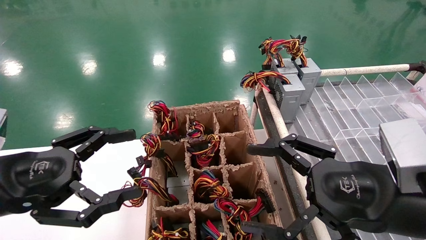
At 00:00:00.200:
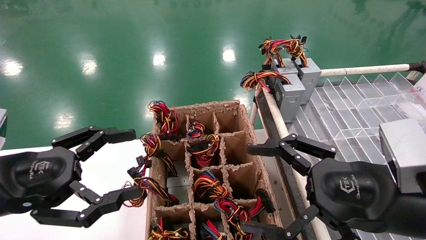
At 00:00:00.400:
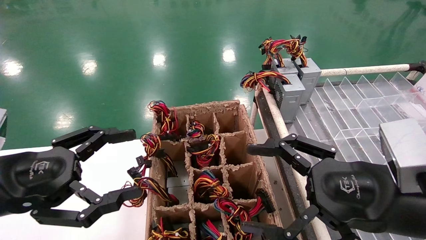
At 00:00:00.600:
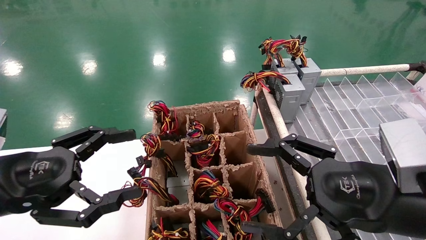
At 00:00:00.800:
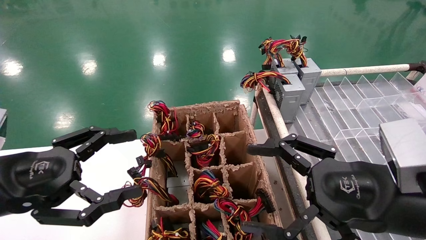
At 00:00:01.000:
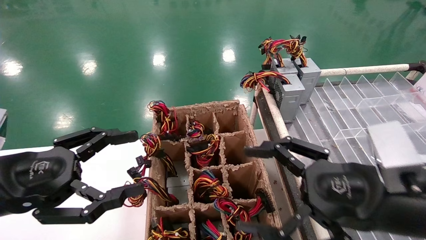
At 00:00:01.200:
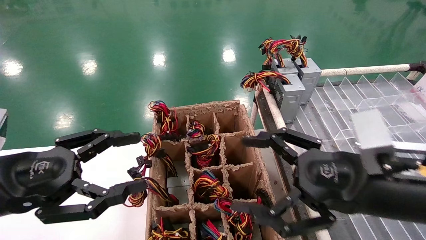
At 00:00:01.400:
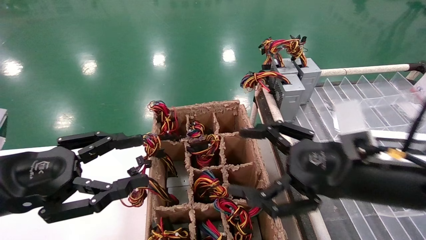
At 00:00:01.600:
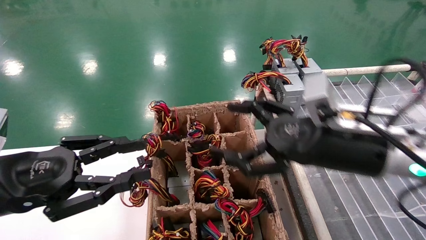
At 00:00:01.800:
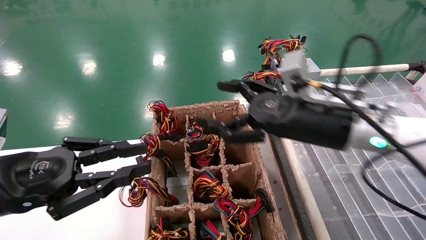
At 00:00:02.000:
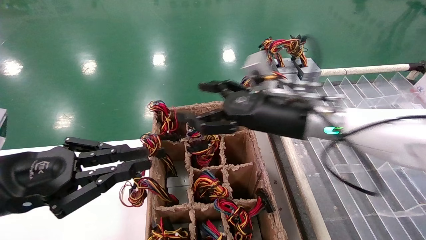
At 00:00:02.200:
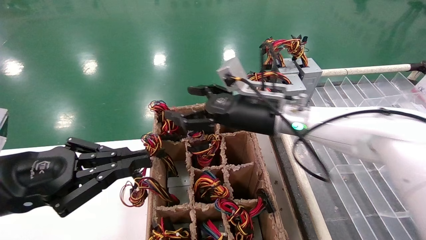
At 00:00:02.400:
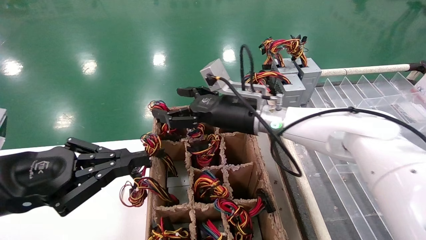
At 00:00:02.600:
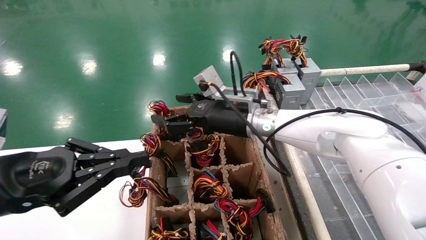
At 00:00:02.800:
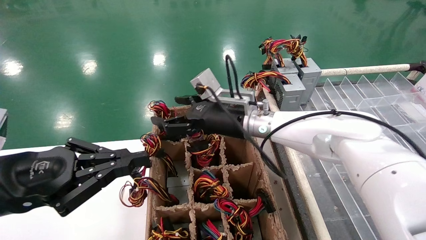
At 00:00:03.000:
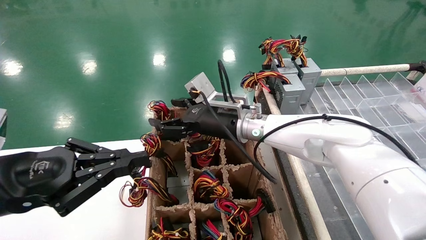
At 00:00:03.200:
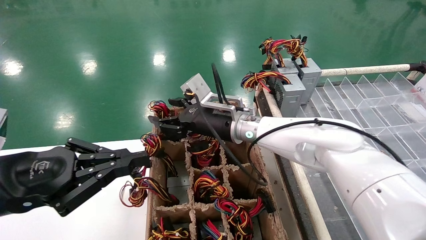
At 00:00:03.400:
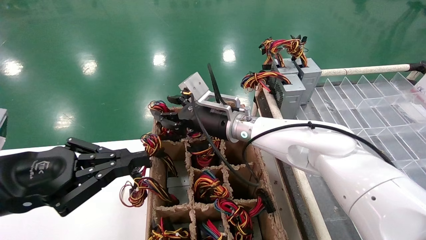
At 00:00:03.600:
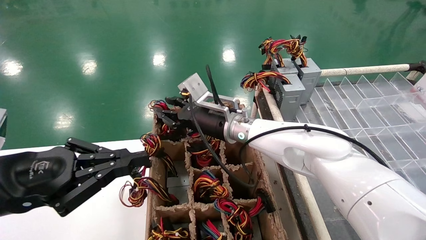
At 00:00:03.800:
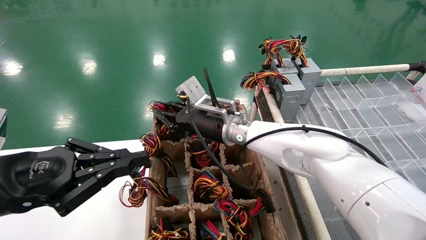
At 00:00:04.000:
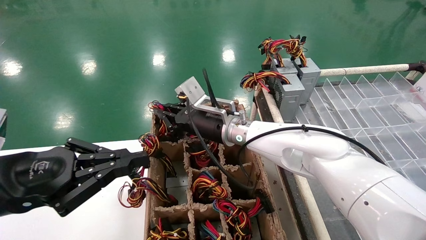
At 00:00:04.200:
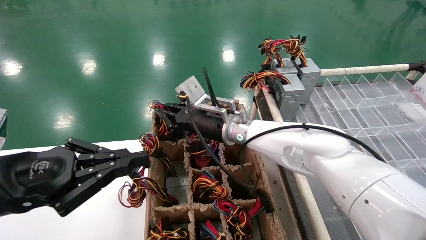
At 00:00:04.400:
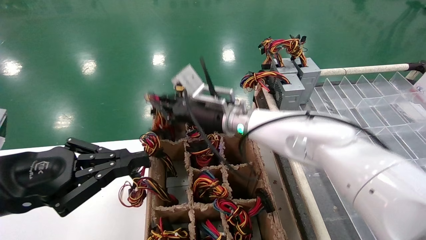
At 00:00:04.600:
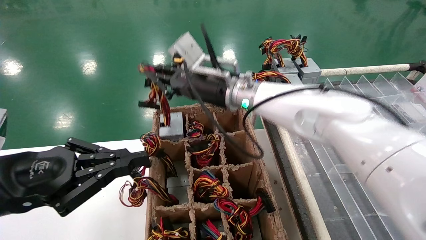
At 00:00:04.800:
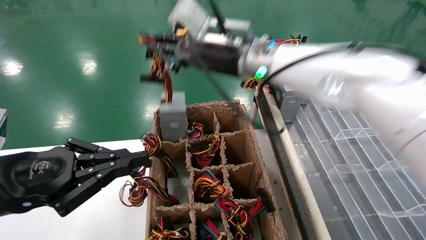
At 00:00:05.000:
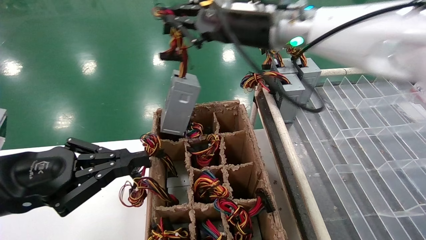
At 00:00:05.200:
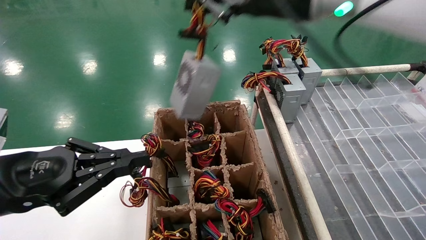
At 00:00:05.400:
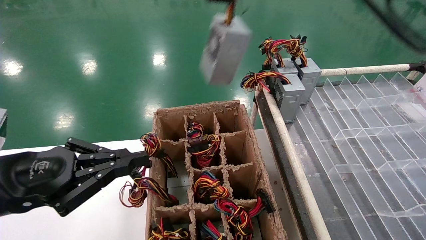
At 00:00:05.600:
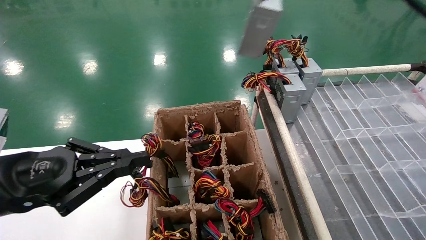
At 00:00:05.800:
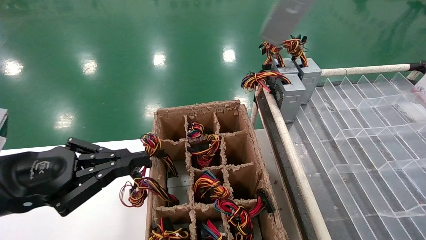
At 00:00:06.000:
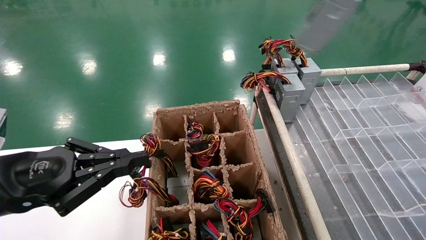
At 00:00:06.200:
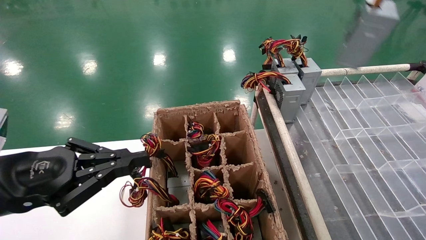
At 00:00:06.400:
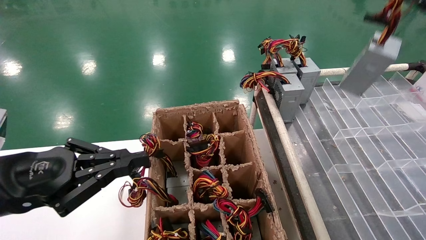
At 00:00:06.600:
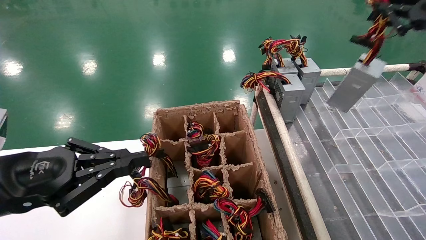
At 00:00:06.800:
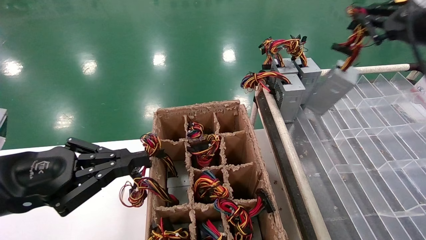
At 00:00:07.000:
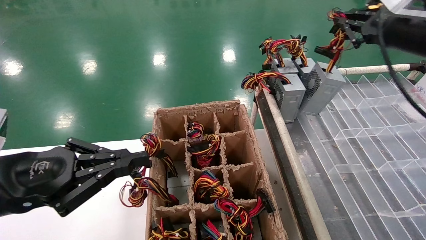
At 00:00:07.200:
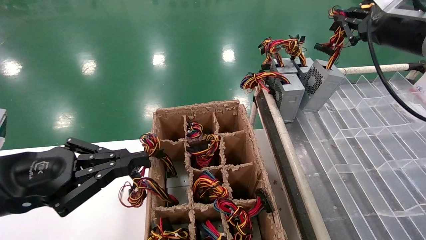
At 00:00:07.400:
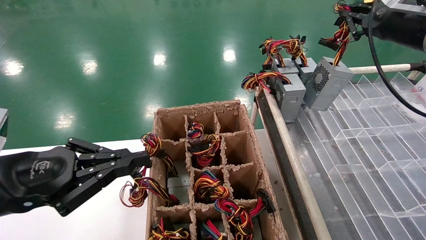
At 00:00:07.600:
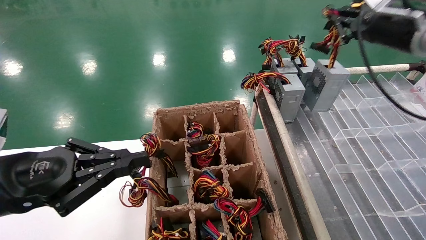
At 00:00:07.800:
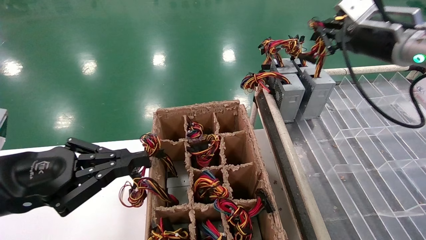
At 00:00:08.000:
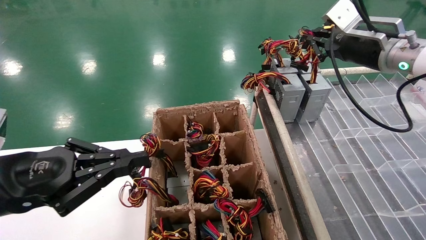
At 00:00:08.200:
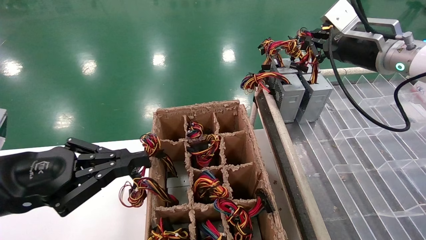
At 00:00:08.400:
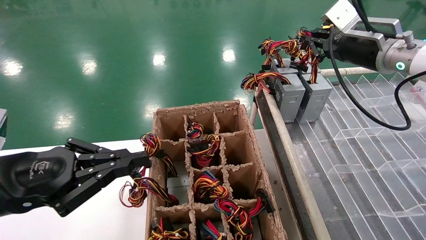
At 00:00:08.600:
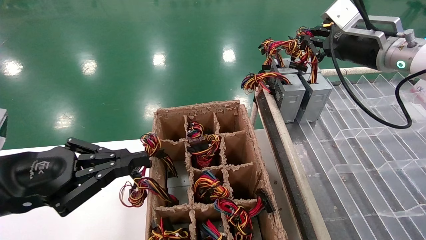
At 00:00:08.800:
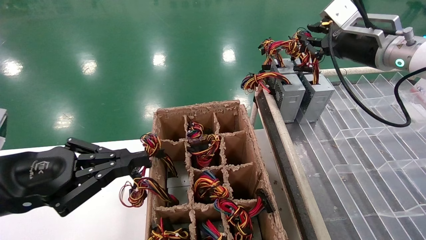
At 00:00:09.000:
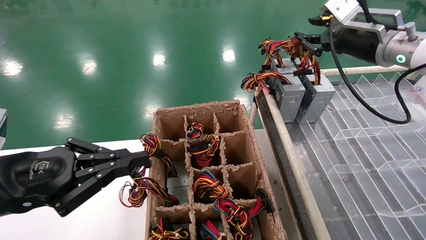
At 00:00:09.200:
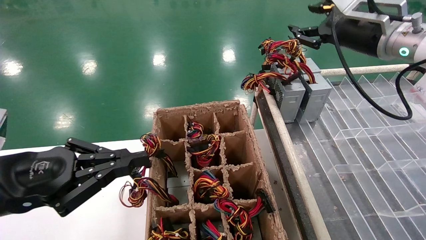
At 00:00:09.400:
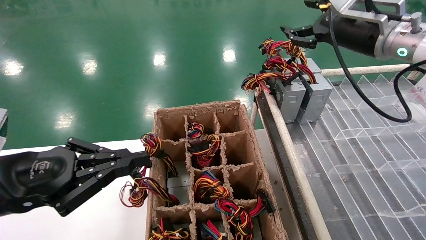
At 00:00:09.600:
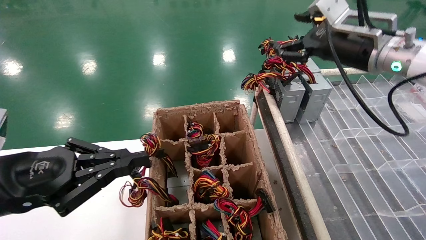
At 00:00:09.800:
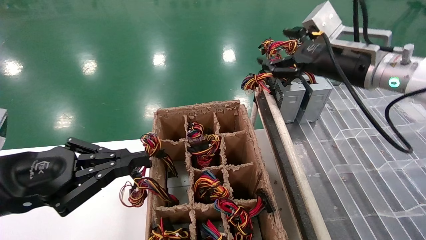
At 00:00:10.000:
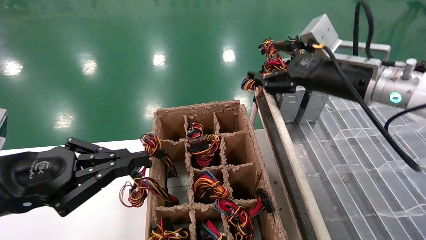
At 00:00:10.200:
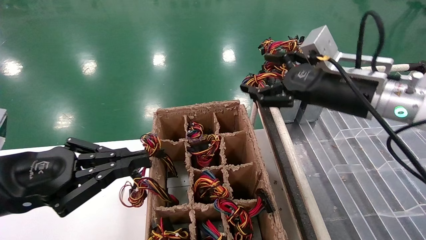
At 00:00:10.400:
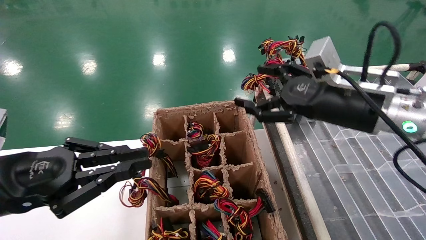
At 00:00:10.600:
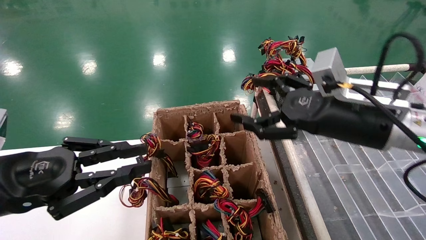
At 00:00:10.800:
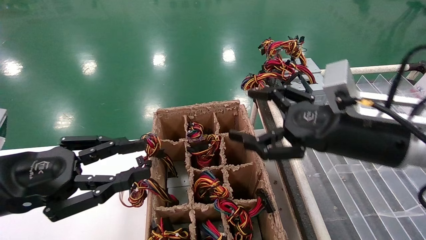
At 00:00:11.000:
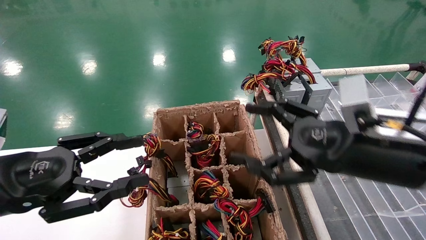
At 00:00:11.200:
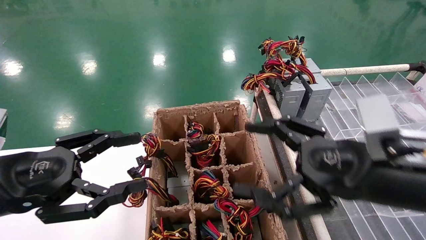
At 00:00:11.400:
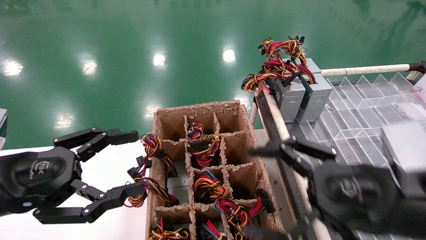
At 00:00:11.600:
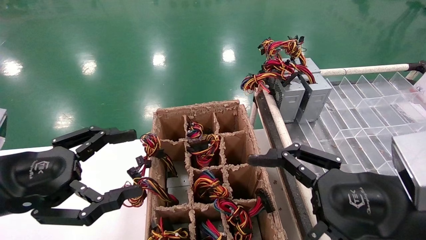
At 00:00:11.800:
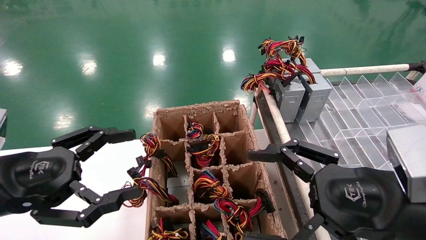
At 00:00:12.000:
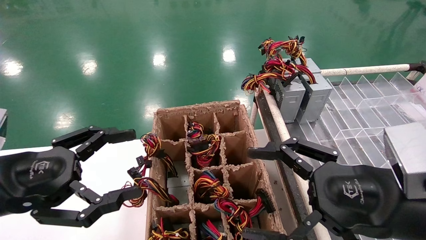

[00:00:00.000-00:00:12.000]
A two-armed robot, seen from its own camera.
Step, 00:00:01.200 to 00:00:04.000: Grab the main unit power supply from the containment box.
Step, 00:00:04.200 to 00:00:09.200: Place the main unit power supply in the designated area.
00:00:00.000 to 00:00:01.600: The right gripper travels forward by about 10 cm. The left gripper closes up.
00:00:01.600 to 00:00:03.000: The right gripper travels to the left and forward by approximately 20 cm. The left gripper closes its fingers.
00:00:03.000 to 00:00:04.400: The right gripper closes.
00:00:04.400 to 00:00:06.000: The right gripper shifts some 40 cm to the right, upward and backward.
00:00:06.000 to 00:00:07.600: The right gripper heads downward and forward, covering about 15 cm.
00:00:07.600 to 00:00:09.000: There are only small adjustments of the grippers.
00:00:09.000 to 00:00:10.400: The right gripper travels downward, backward and to the left by approximately 15 cm, and opens its fingers.
00:00:10.400 to 00:00:12.000: The left gripper opens its fingers. Meanwhile the right gripper travels backward and downward by roughly 15 cm.

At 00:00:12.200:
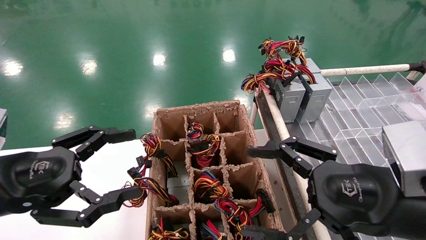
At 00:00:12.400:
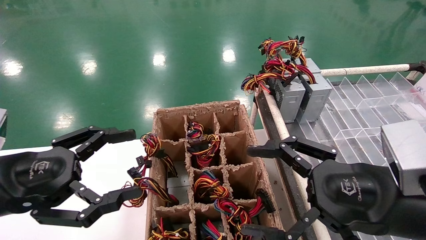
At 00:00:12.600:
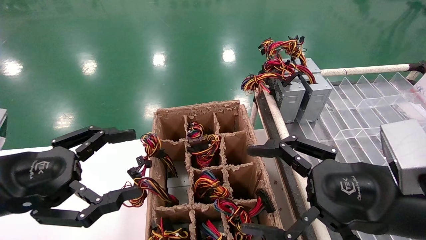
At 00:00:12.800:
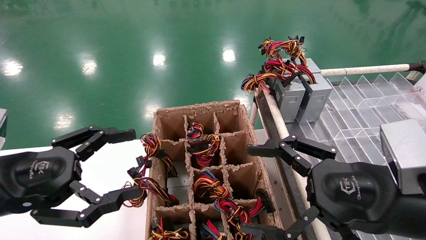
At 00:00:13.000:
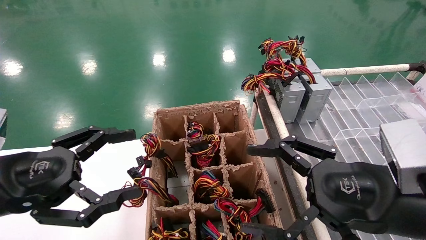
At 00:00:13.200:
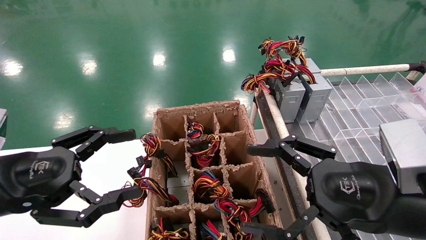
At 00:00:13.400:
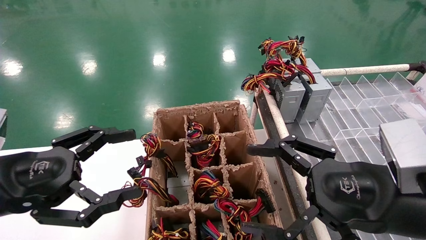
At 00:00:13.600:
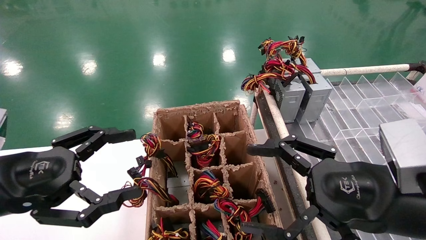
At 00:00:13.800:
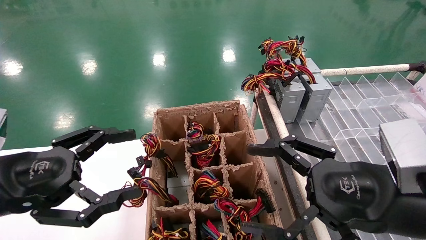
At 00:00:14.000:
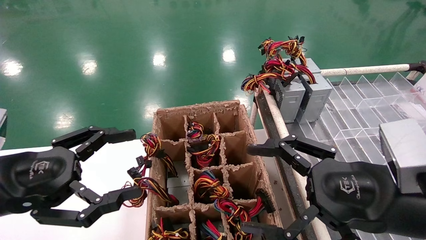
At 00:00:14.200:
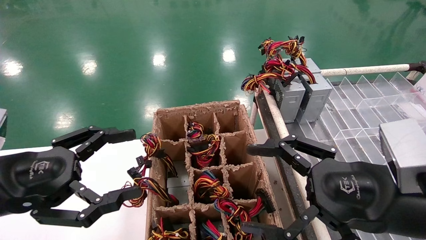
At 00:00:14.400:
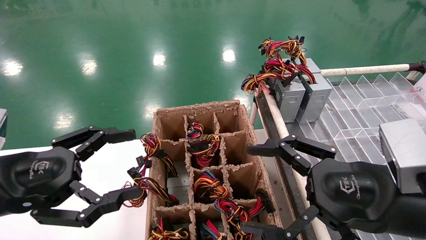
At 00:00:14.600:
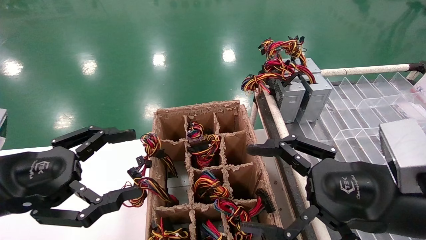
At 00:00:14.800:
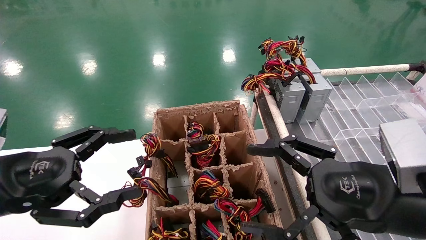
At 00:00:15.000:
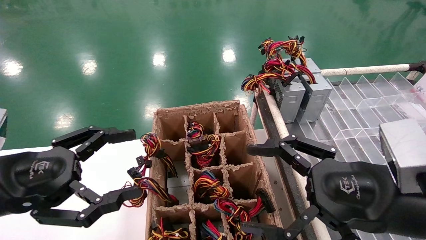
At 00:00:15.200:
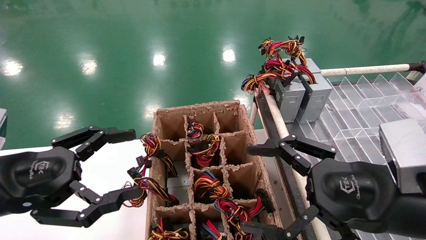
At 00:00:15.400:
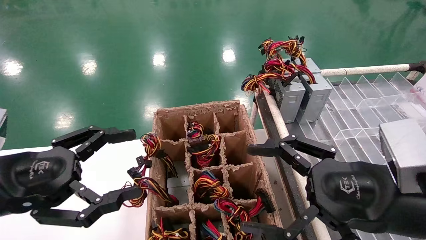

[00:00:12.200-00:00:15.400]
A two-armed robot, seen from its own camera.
00:00:12.200 to 00:00:15.400: Neither gripper changes place.
